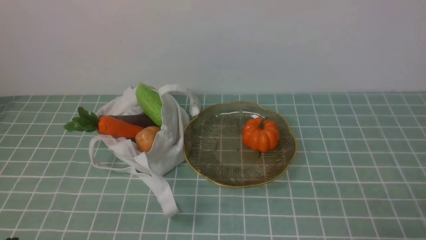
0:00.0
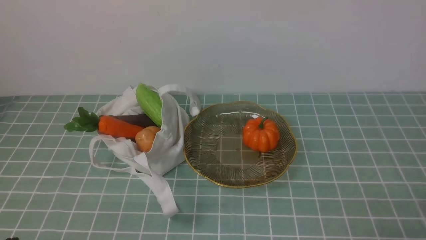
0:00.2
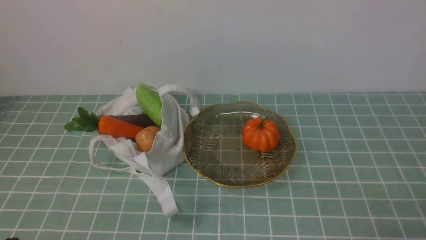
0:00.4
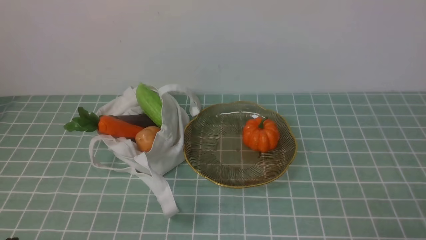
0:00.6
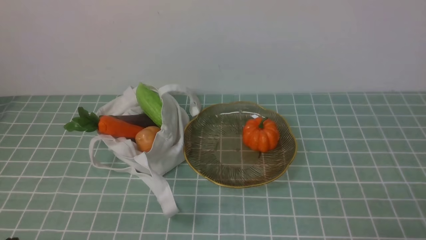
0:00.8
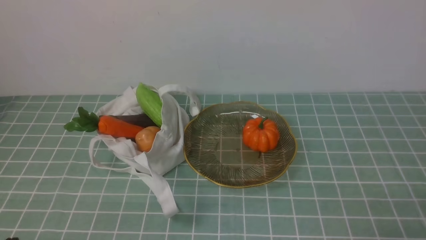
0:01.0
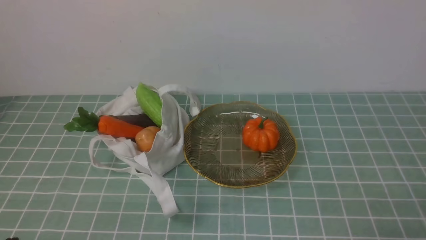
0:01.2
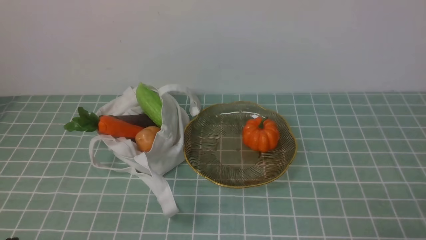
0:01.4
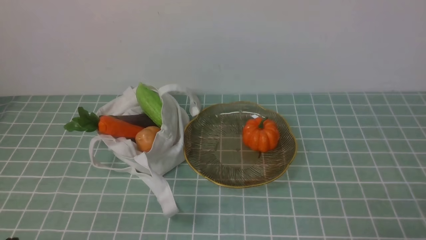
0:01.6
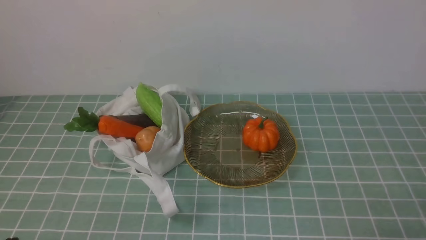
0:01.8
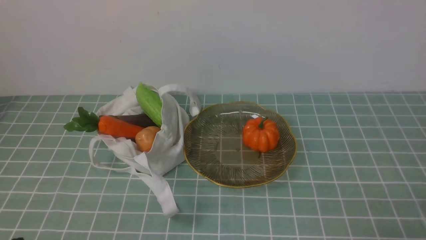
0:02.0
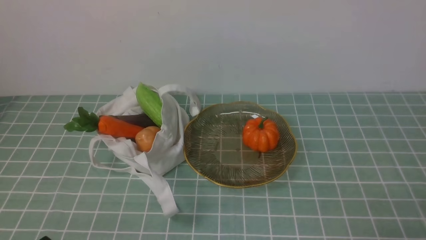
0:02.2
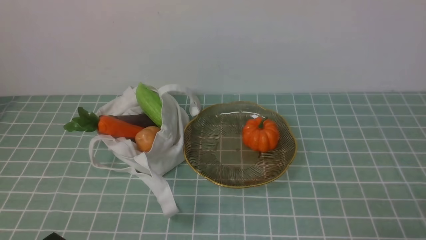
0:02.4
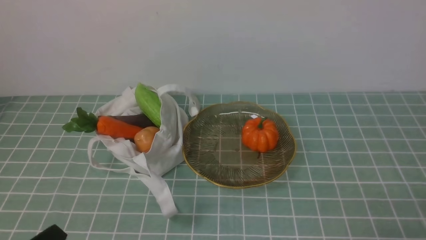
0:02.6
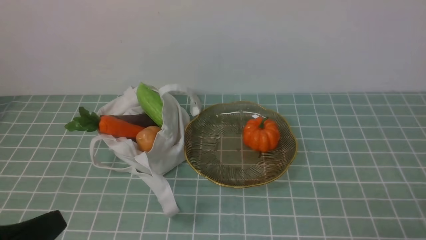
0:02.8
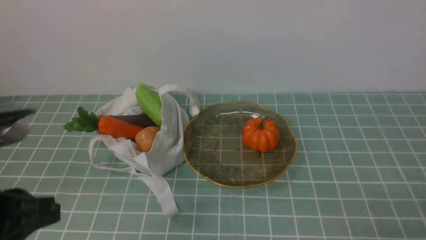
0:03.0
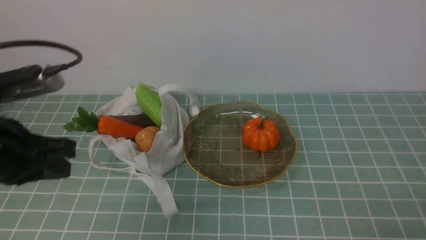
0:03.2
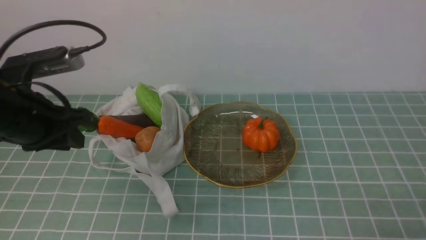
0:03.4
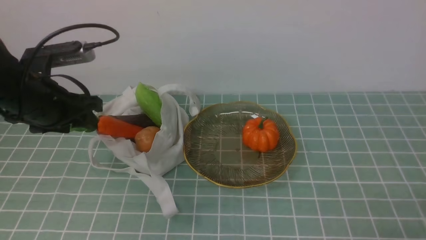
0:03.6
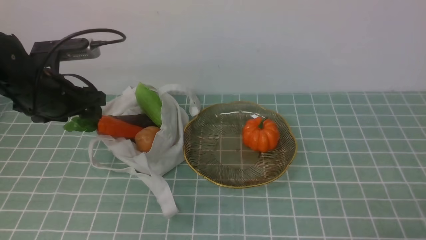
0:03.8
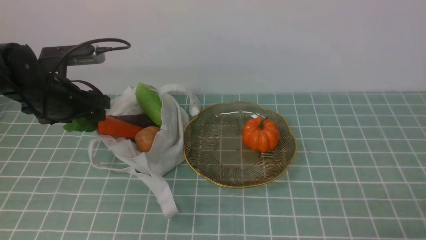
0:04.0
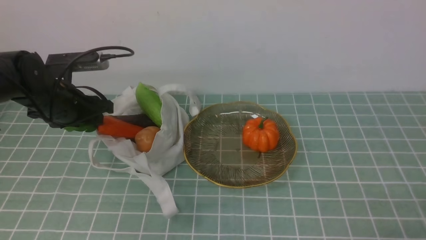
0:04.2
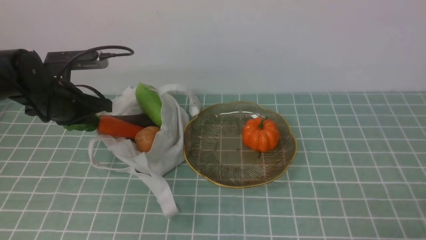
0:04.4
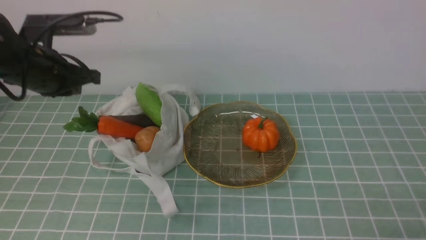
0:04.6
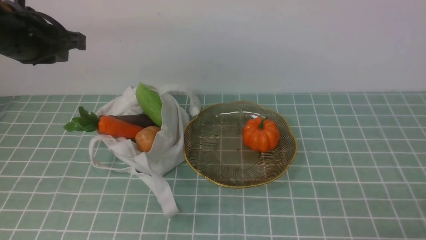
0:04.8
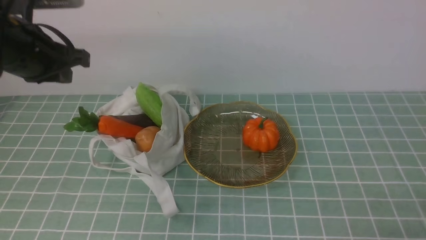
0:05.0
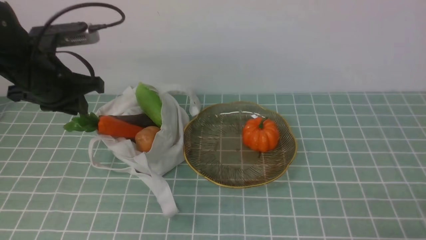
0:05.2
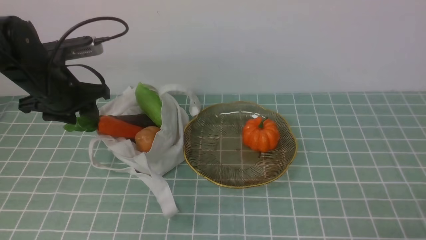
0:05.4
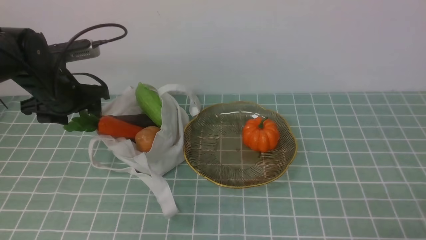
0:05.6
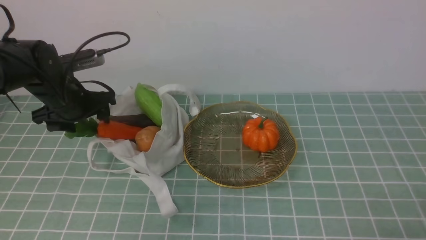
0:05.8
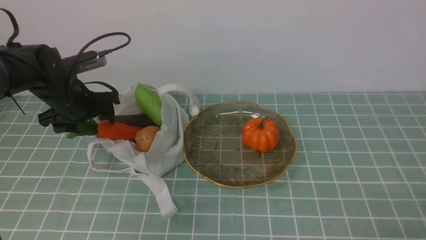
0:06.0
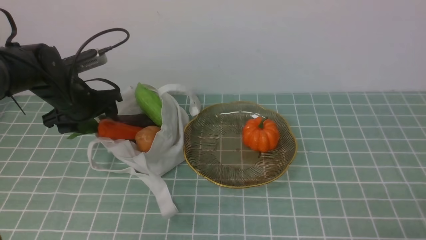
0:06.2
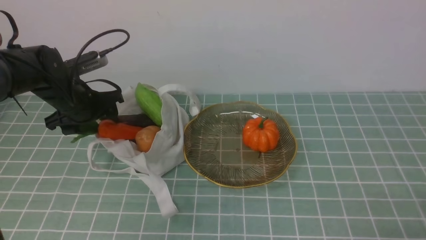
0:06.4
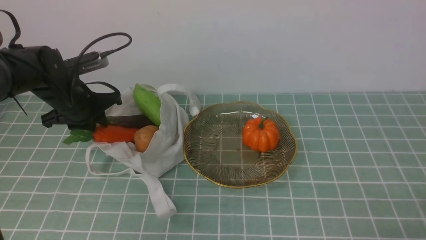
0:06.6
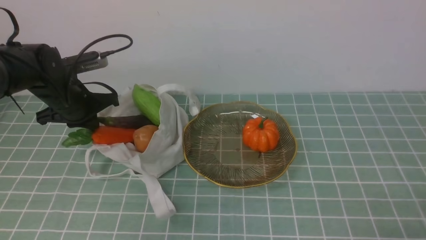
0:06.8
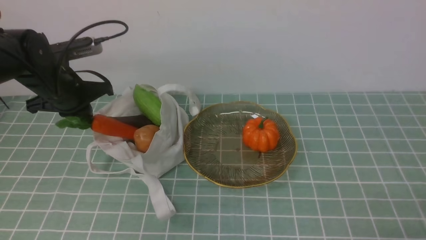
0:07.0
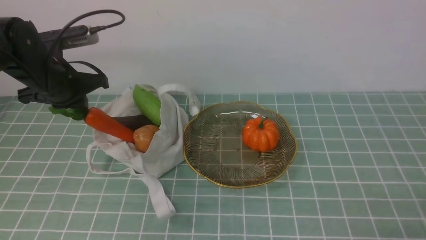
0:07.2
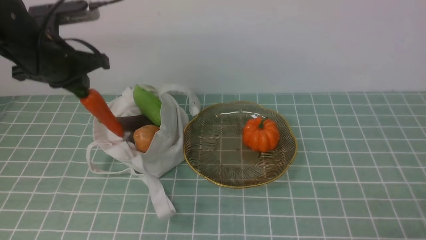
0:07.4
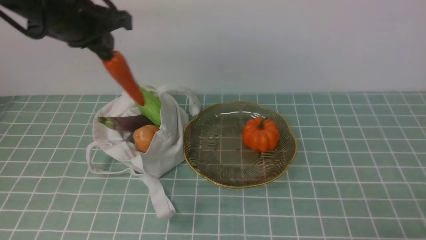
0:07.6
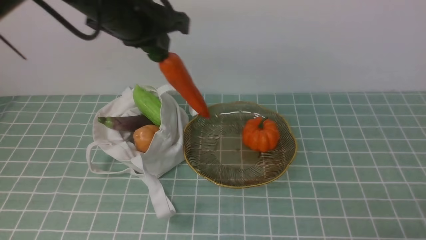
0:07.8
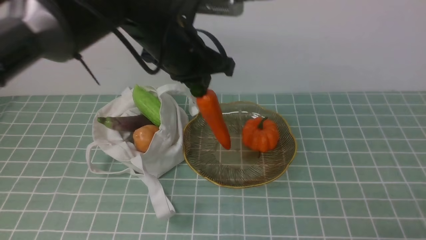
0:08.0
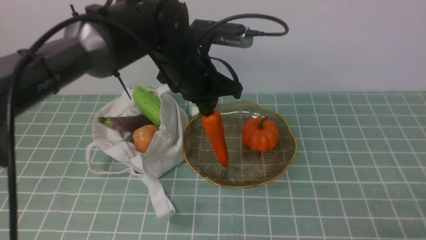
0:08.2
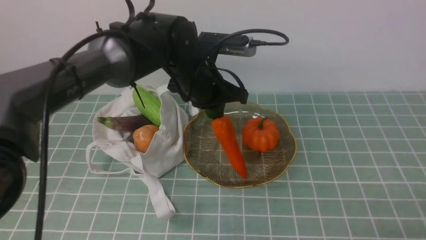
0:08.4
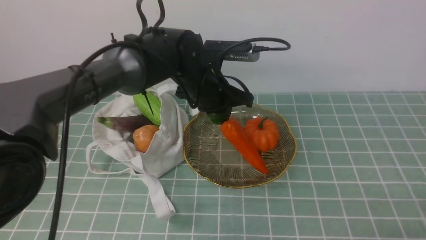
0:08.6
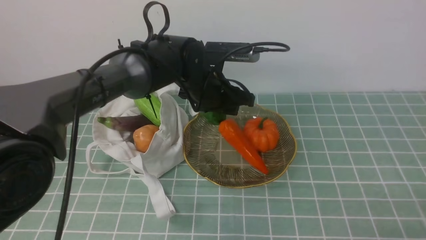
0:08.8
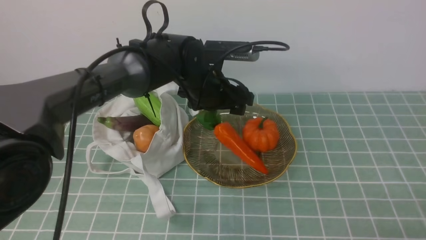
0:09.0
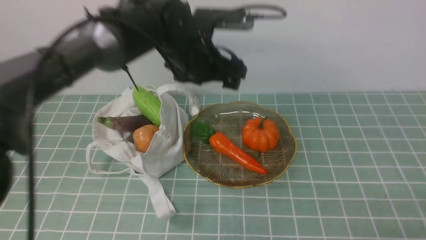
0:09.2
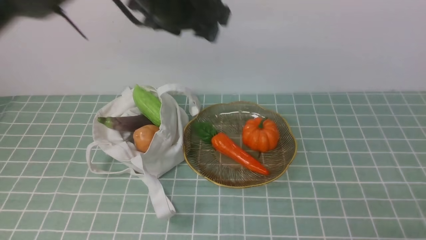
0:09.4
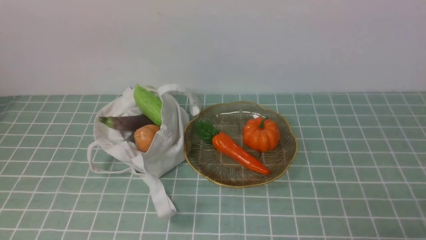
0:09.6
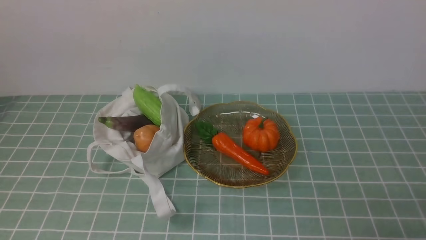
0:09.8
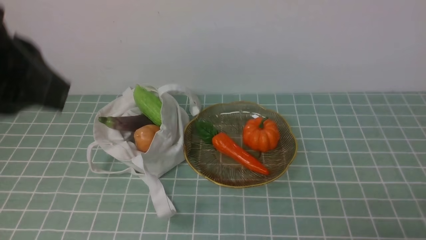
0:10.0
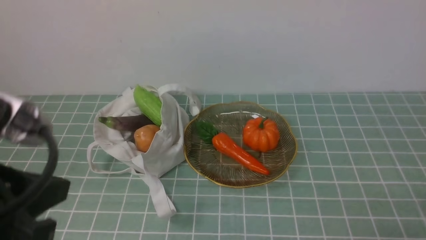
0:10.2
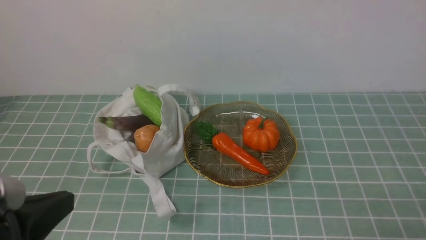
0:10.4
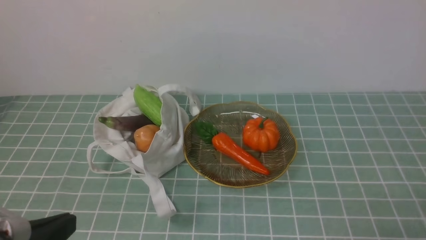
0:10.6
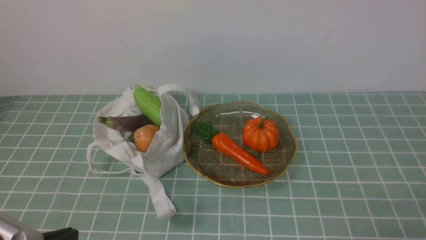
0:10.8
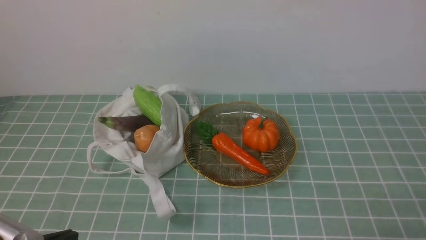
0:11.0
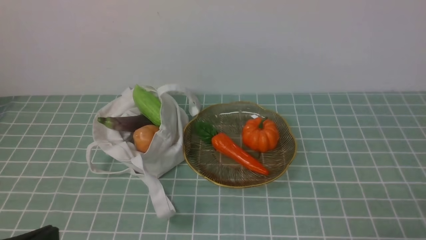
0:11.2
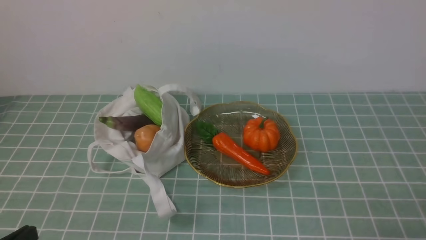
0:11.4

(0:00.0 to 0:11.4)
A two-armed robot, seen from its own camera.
Task of the whole recording: take vegetables from cloth bag on blue coffee tablecloth place on plate.
Step, 0:00.0 - 0:06.6: Grasp the radish with left gripper.
Step, 0:06.8 - 0:09.0: Place the radish on the plate with left gripper.
0:00.0 - 0:01.4: Neither gripper changes place.
0:01.4 - 0:02.8: The left gripper is displaced upward by roughly 10 cm.
0:02.8 - 0:04.2: The left gripper goes roughly 30 cm forward, and opens up.
0:04.2 - 0:05.6: The left gripper moves about 10 cm upward and comes back, and opens.
0:05.6 - 0:07.2: The left gripper closes up.
0:07.2 - 0:08.6: The left gripper shifts some 20 cm to the right.
0:08.6 - 0:10.0: The left gripper travels backward, upward and to the left by some 35 cm, and opens, then closes once more.
0:10.0 - 0:11.4: The left gripper travels downward and backward by about 25 cm.

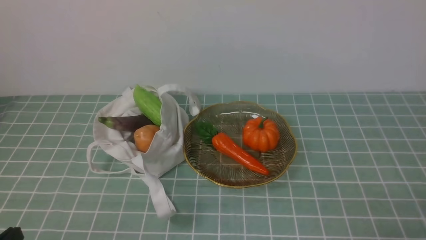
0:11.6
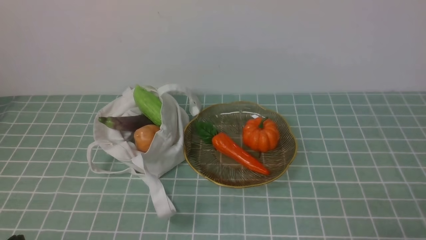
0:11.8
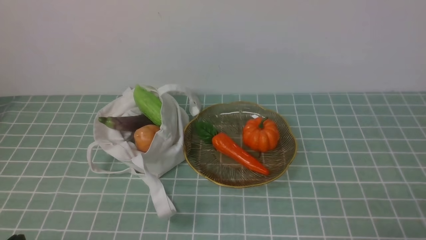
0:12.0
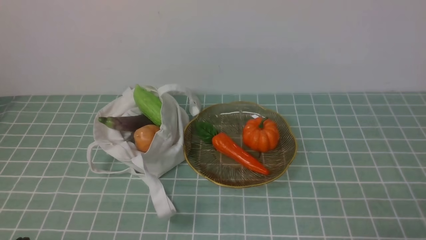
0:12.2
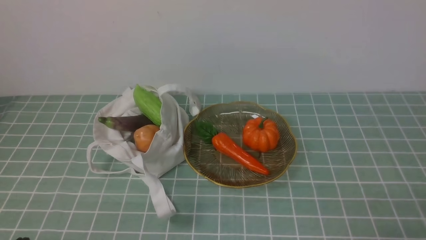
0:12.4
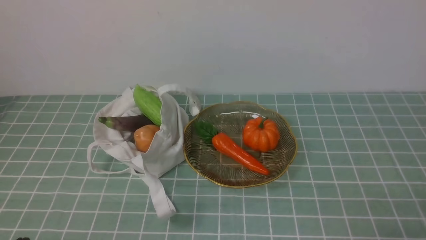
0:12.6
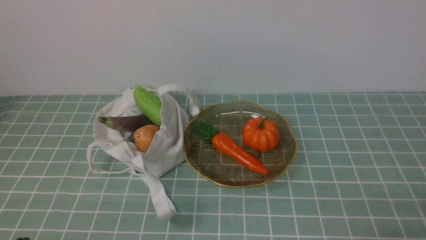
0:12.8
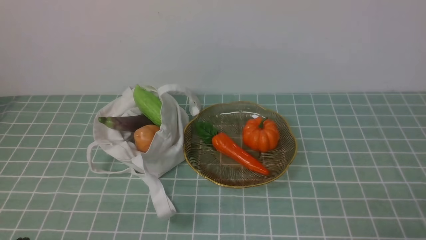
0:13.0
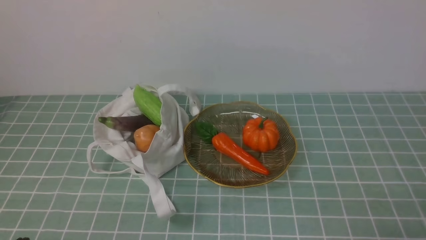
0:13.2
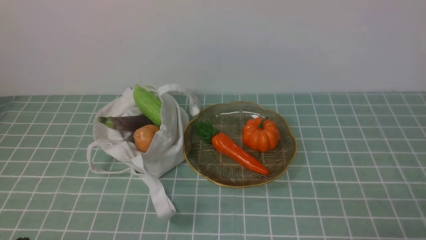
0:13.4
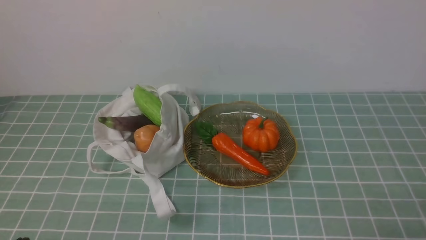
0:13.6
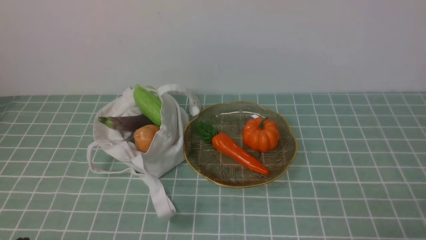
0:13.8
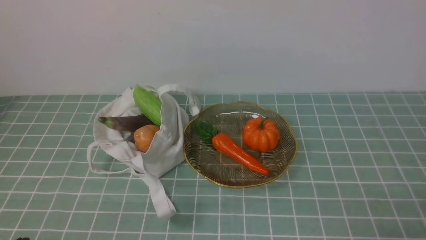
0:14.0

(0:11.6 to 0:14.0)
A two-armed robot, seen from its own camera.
Task of the whole recording: take vegetables from cloth bag on blue coffee tablecloth place on plate.
0:12.8 - 0:14.0: Both grippers stay put.
